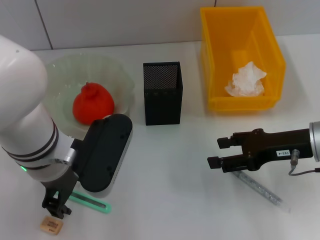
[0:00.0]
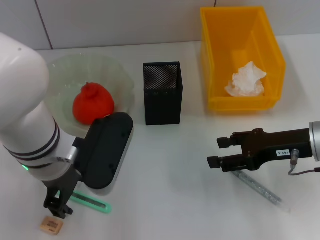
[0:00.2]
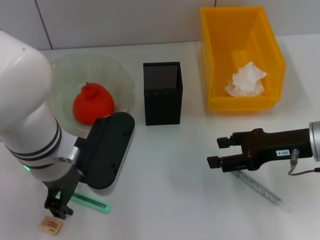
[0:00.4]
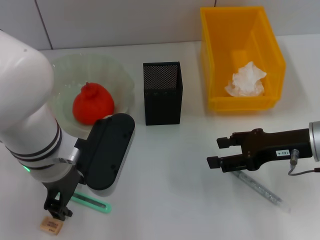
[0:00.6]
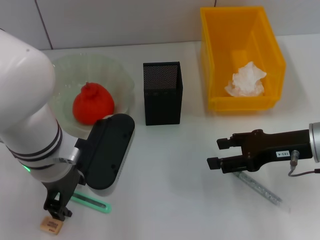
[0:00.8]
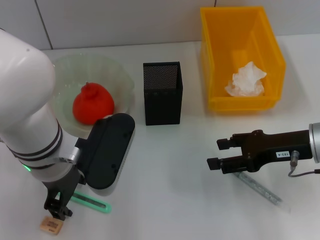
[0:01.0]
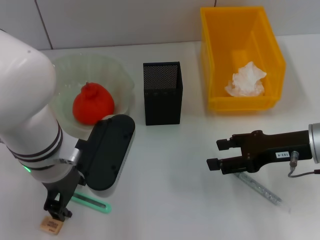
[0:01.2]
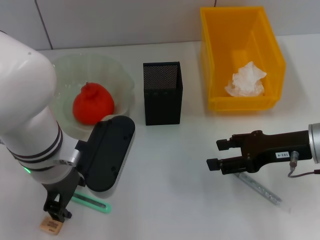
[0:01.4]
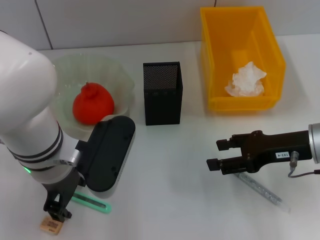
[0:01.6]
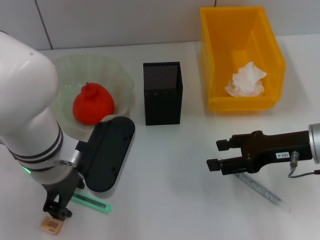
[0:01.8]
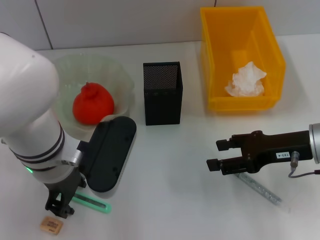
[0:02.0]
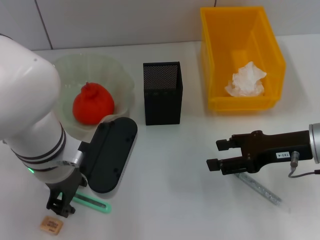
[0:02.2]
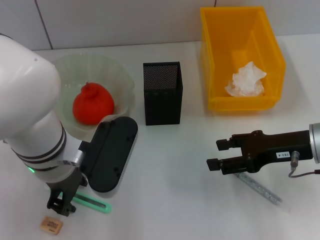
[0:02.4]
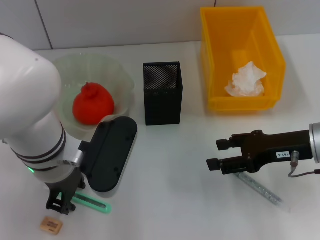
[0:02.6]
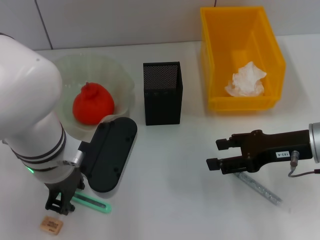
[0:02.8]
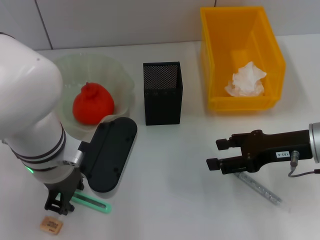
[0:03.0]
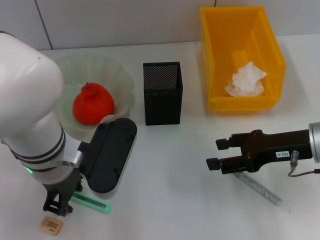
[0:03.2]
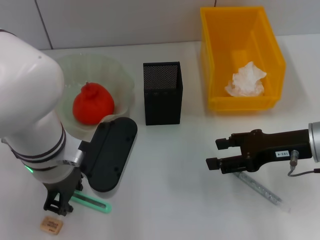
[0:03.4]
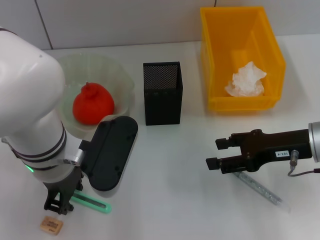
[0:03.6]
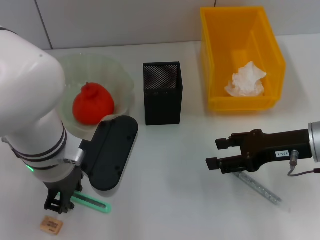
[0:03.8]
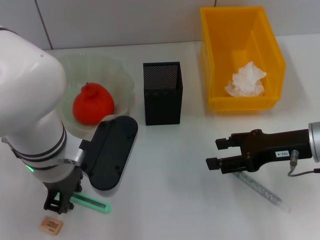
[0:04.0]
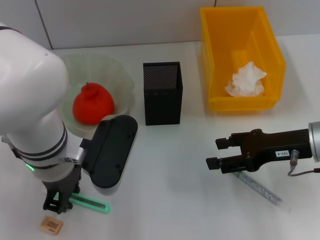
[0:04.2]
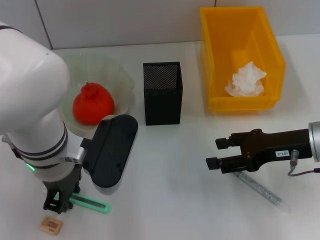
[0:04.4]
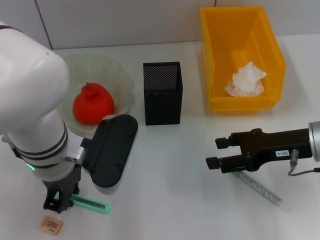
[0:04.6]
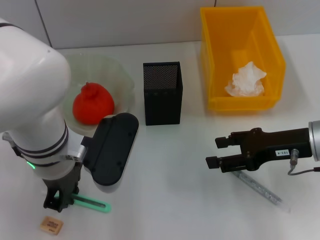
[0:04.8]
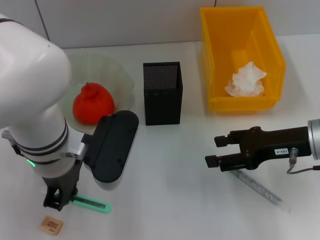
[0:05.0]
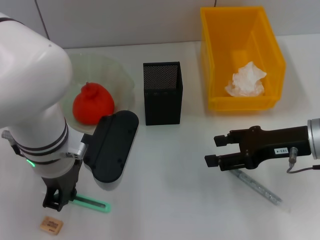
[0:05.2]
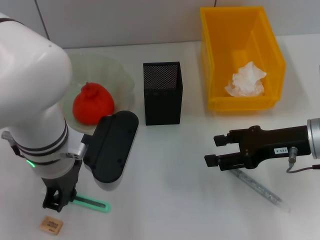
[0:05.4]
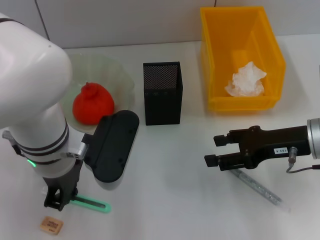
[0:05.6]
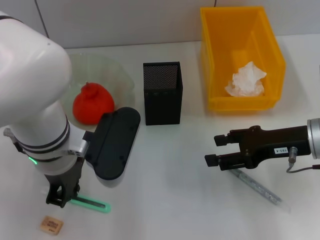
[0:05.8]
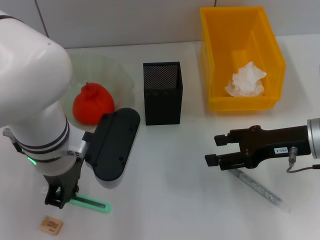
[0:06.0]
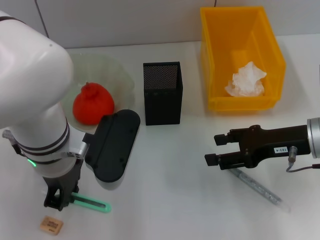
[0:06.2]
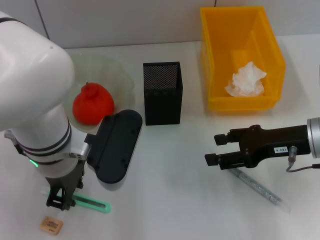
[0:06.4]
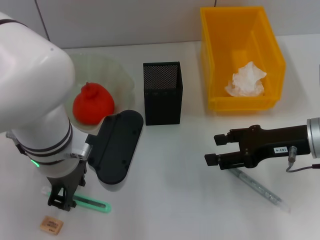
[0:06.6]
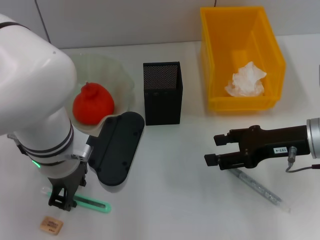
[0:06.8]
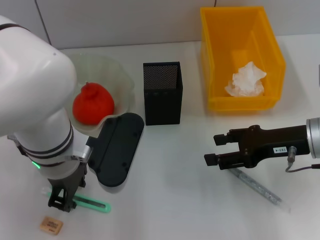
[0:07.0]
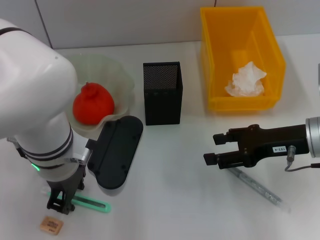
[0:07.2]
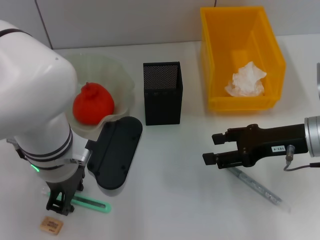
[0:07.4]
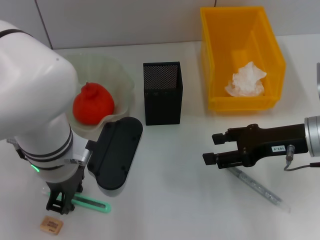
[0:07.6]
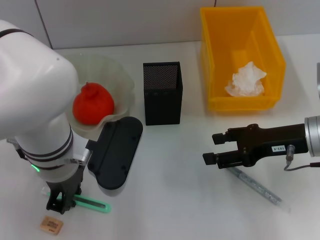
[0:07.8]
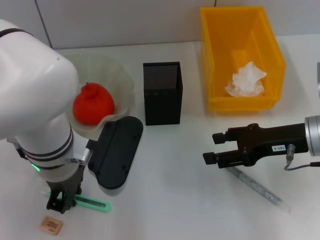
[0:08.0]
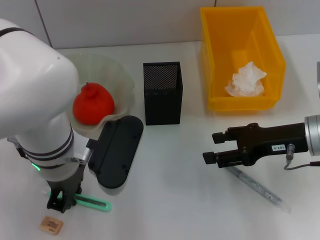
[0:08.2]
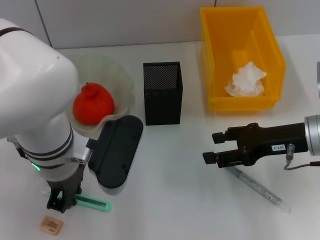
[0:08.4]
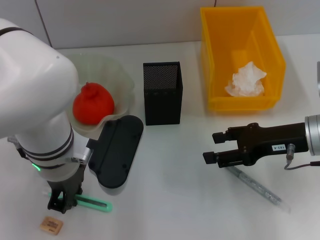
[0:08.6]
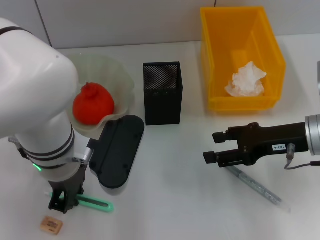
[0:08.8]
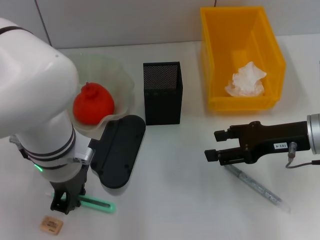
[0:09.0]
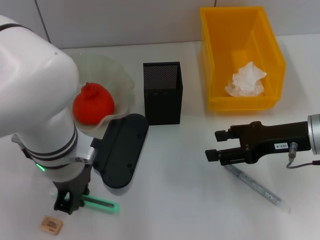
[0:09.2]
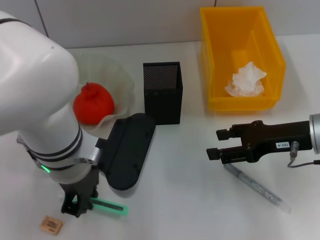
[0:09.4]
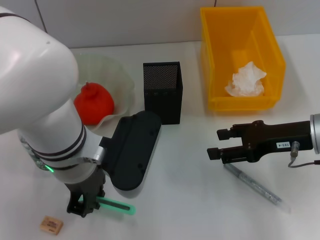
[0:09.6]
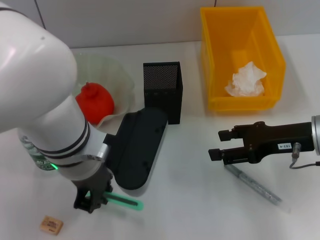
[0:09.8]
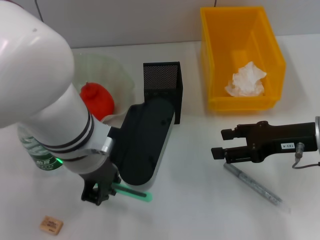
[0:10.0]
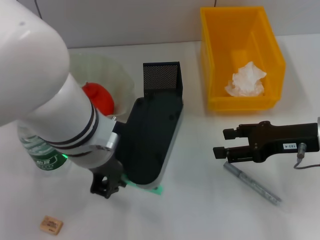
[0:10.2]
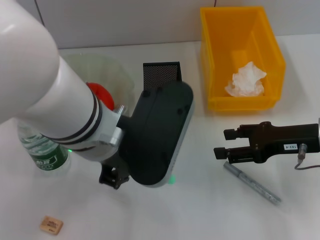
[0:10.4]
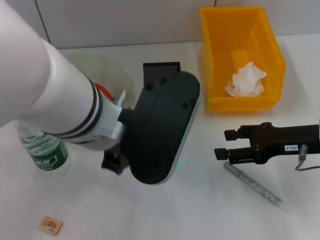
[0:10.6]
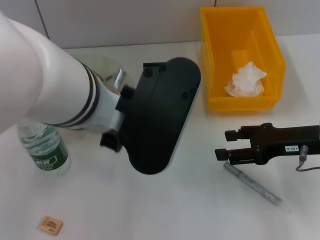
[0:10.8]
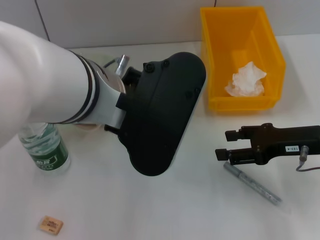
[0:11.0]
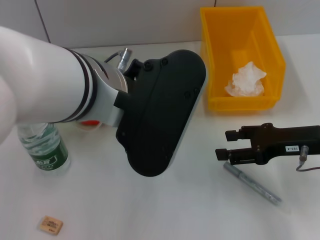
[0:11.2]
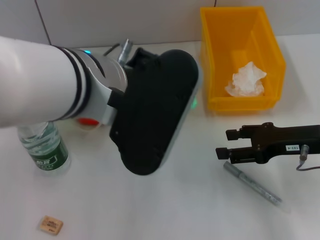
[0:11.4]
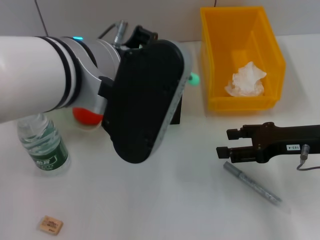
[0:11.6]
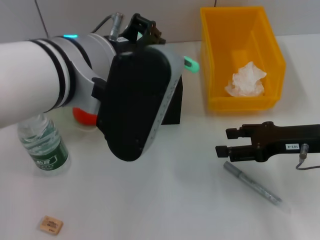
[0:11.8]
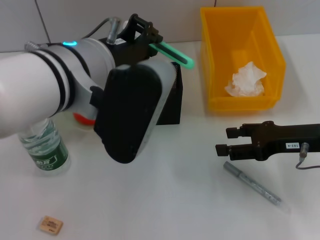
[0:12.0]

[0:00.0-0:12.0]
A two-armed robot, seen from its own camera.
Step, 0:00.0 to 0:08.0: Grab the blue utility knife with the left hand.
0:00.0 to 0:04.4: Both grippers stay about where they are.
0:04.4 to 0:06.0: Both grippers stay about where they are.
0:06.0 to 0:07.6: The left gripper opens.
0:07.6 to 0:09.0: The left gripper closes its fingers.
0:09.0 to 0:10.4: The left gripper travels upward by roughly 5 cm.

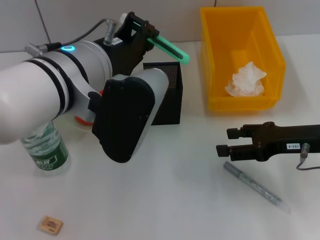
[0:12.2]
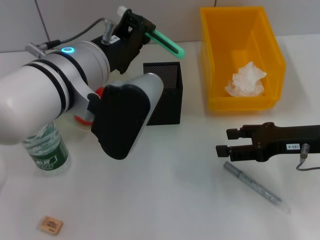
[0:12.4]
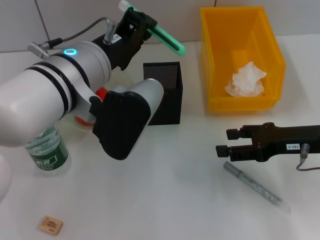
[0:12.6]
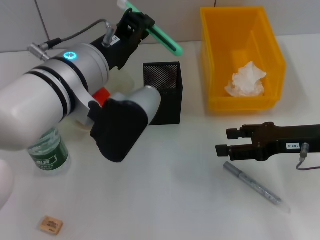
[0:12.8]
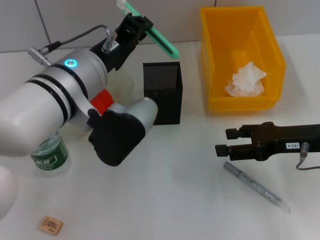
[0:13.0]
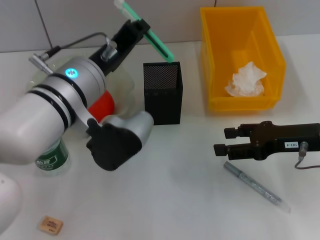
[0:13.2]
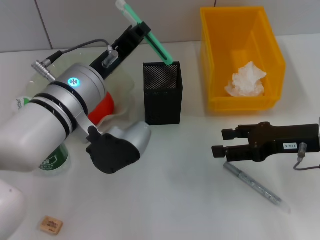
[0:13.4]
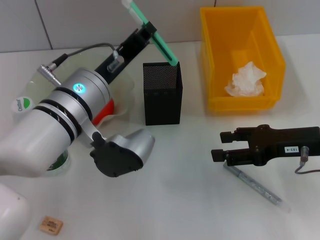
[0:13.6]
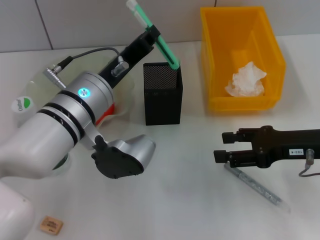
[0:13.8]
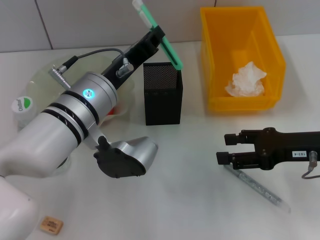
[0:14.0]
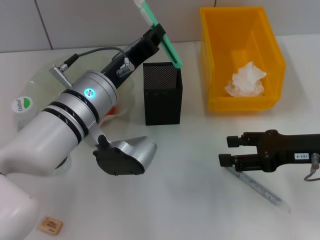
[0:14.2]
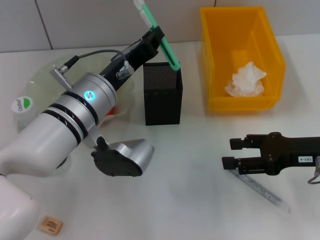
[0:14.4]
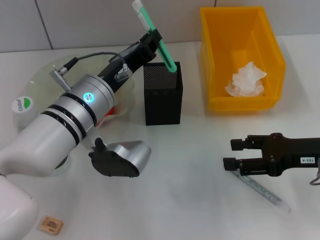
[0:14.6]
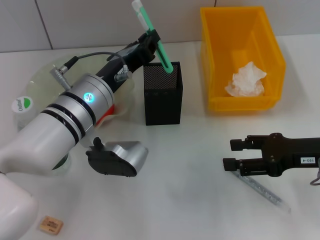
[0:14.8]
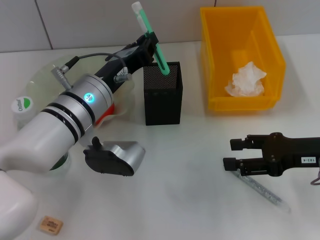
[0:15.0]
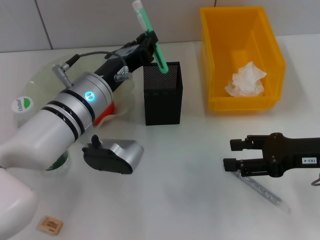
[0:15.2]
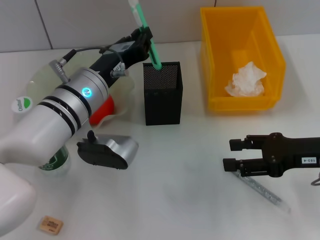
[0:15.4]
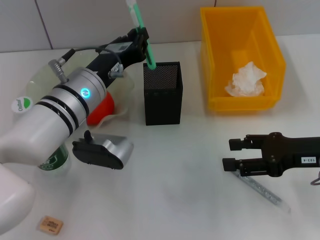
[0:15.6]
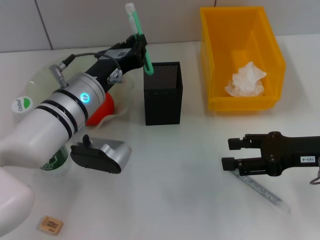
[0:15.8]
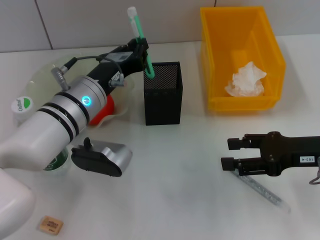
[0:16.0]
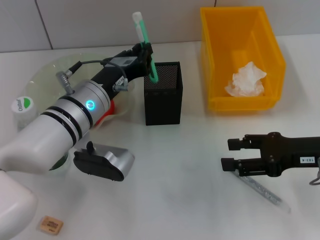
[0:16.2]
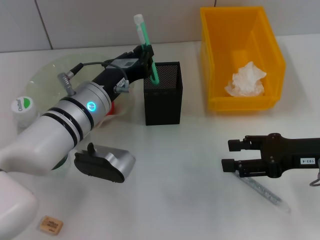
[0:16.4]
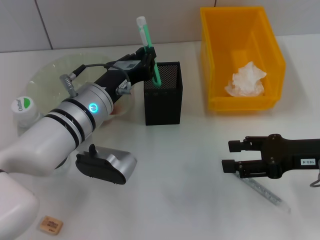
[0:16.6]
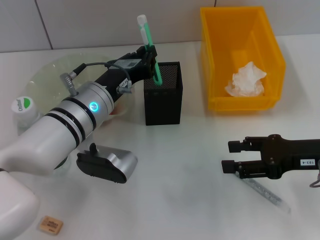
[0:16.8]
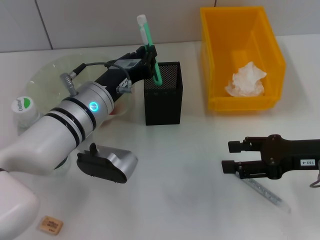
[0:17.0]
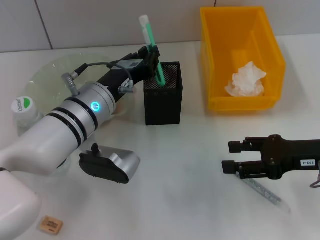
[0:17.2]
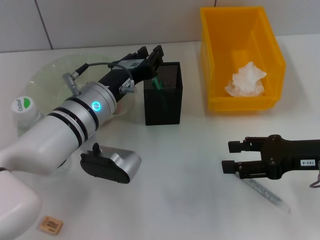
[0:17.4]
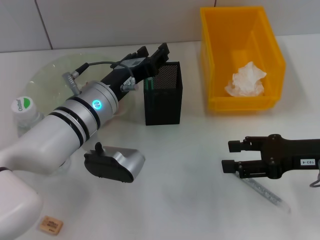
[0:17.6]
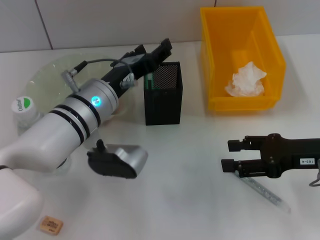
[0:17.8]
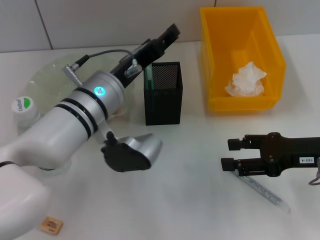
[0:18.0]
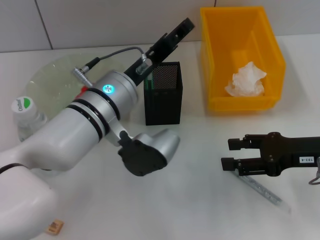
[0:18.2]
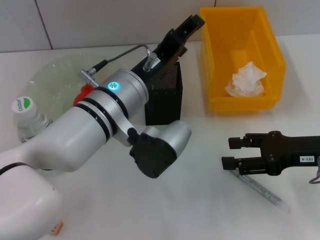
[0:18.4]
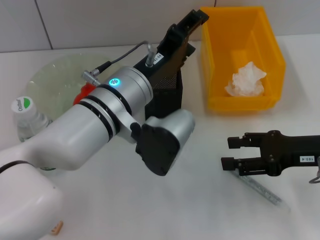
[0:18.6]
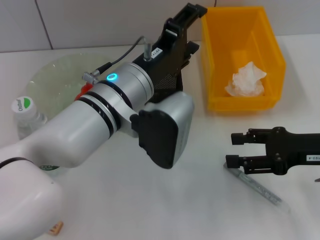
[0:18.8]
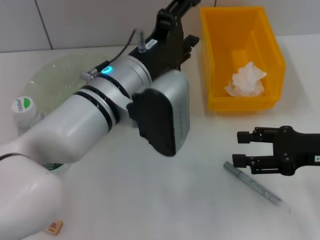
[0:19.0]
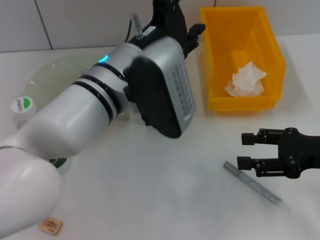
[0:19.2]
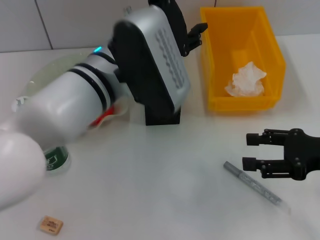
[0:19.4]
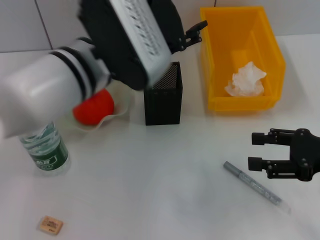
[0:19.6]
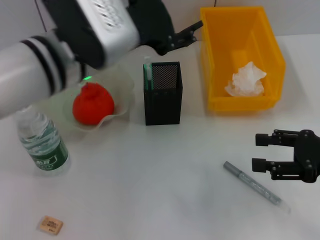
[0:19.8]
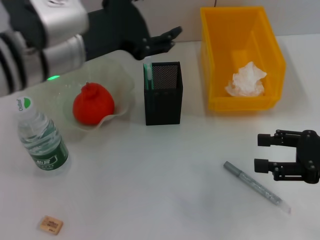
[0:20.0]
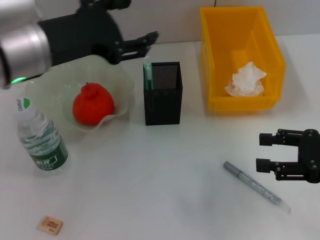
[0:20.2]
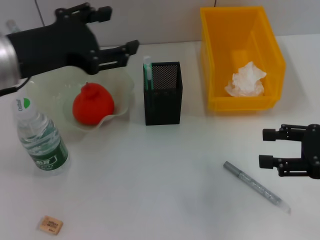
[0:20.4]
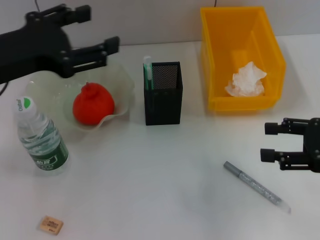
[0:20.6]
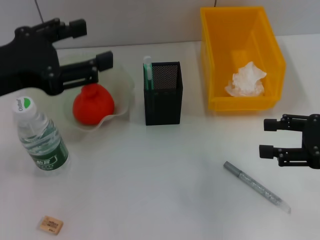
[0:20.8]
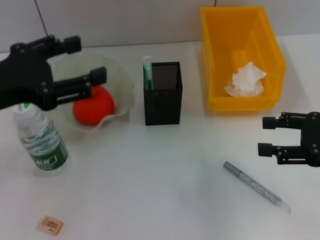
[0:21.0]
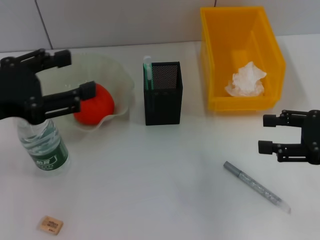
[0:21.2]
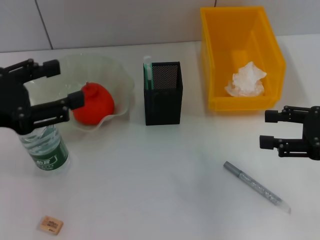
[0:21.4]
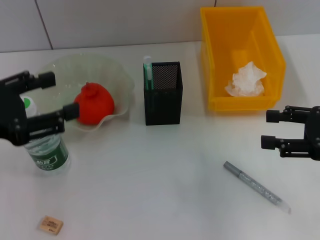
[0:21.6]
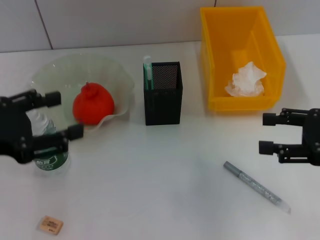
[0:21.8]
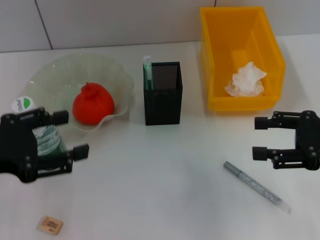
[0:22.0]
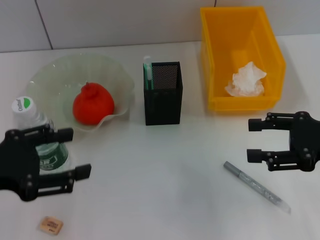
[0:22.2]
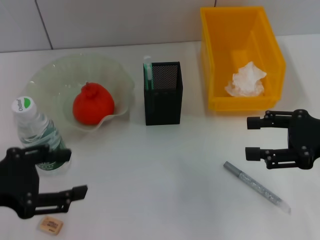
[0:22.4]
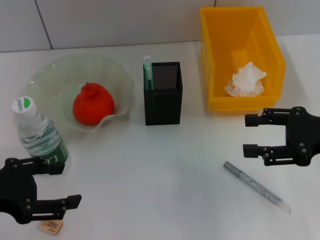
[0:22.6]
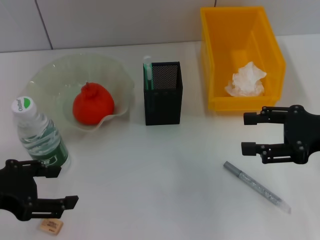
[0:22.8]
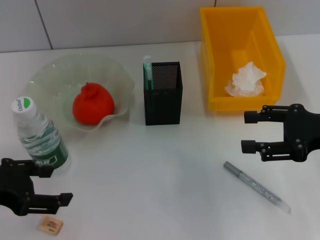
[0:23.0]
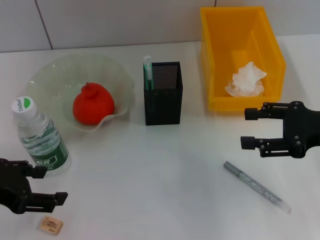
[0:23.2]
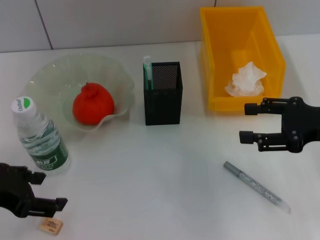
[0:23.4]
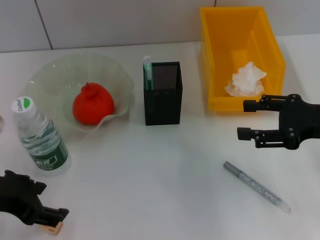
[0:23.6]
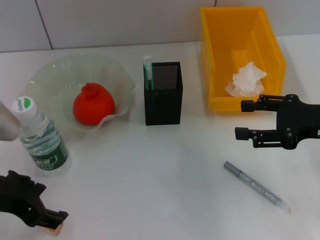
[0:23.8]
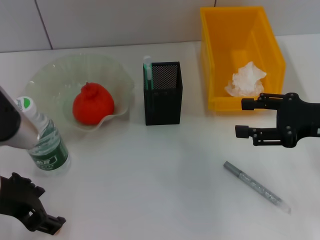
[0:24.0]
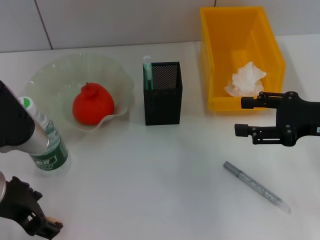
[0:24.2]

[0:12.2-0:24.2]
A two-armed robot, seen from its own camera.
Step, 0:12.2 to 0:17.4: Place the blue utility knife into the pen holder with the left hand.
0:12.2 to 0:13.8: The left gripper travels downward by roughly 10 cm.
0:13.8 to 0:15.2: The grippers move only a little.
0:15.2 to 0:16.6: The grippers move only a little.
0:16.6 to 0:18.2: The left gripper opens its fingers.
0:18.2 to 0:19.8: The left gripper goes some 10 cm upward.
0:19.8 to 0:21.2: The left gripper moves to the left and backward, about 15 cm.
0:21.2 to 0:22.6: The left gripper changes place by roughly 5 cm.
0:22.6 to 0:24.2: The left gripper moves to the right, roughly 5 cm.
